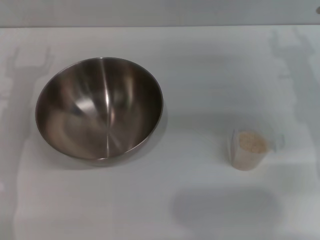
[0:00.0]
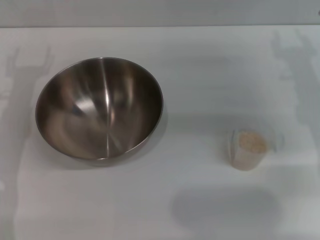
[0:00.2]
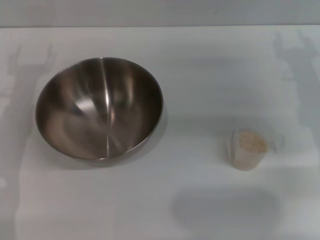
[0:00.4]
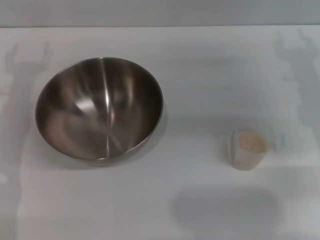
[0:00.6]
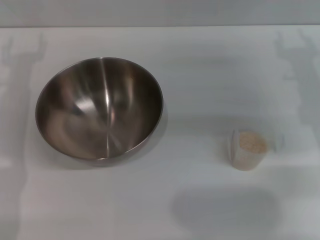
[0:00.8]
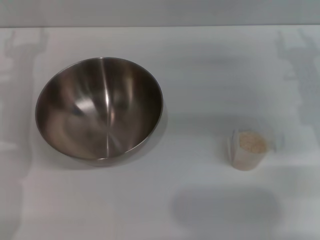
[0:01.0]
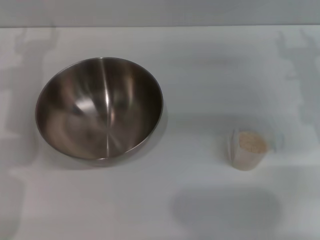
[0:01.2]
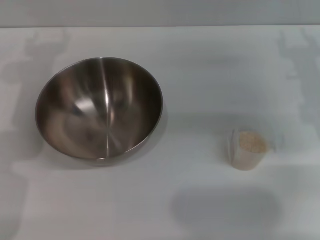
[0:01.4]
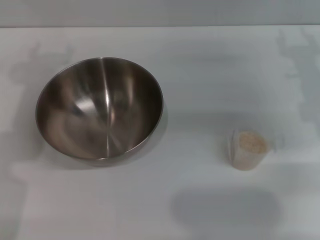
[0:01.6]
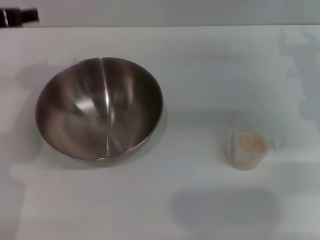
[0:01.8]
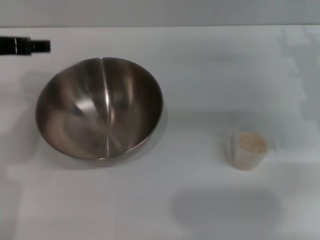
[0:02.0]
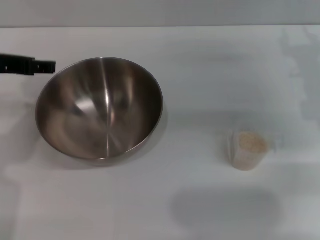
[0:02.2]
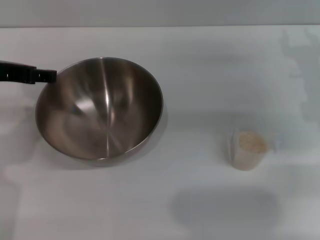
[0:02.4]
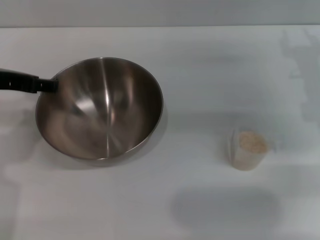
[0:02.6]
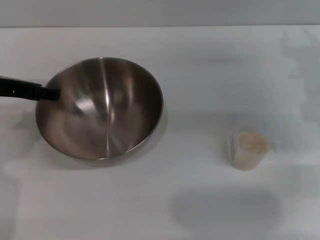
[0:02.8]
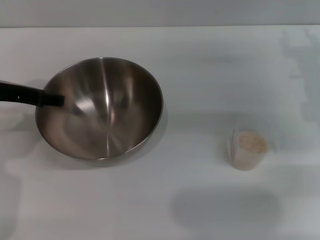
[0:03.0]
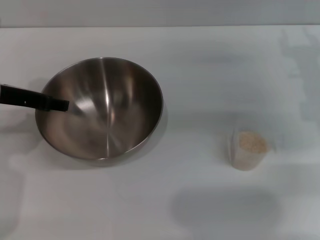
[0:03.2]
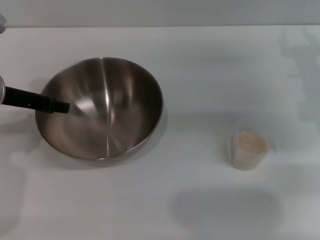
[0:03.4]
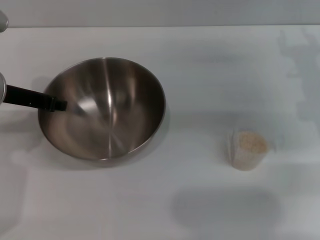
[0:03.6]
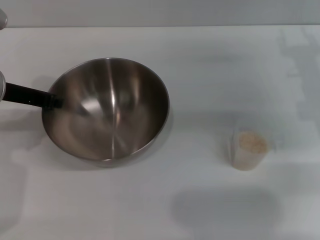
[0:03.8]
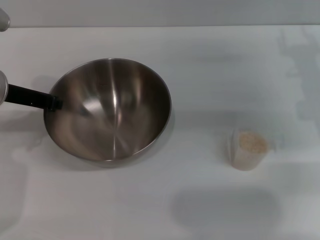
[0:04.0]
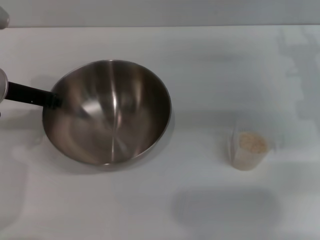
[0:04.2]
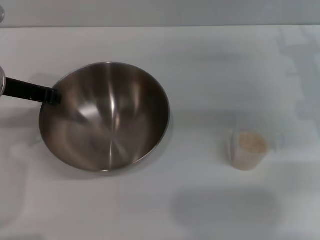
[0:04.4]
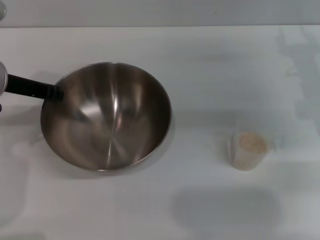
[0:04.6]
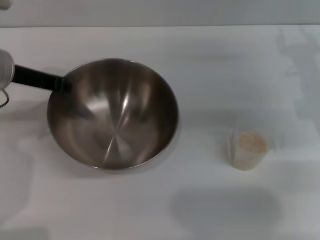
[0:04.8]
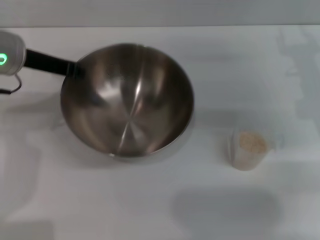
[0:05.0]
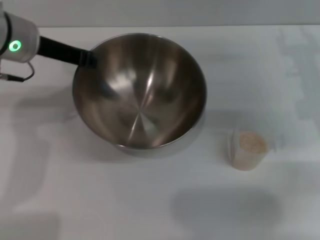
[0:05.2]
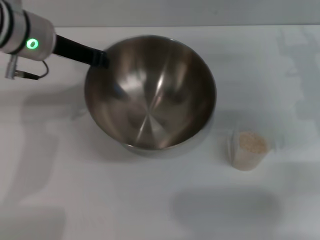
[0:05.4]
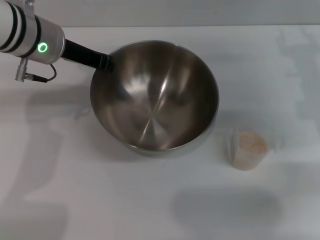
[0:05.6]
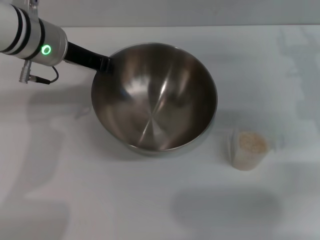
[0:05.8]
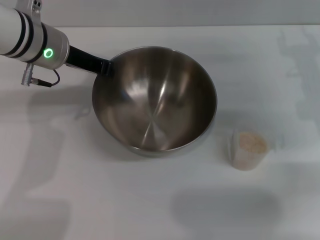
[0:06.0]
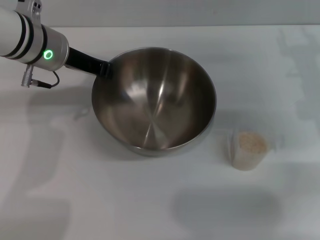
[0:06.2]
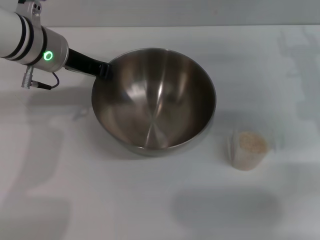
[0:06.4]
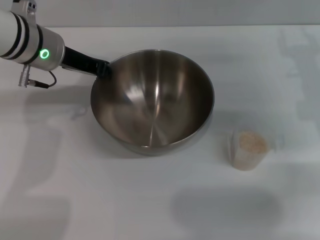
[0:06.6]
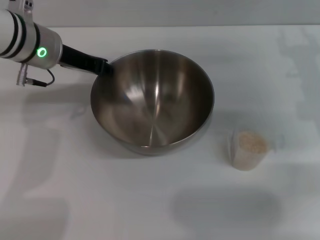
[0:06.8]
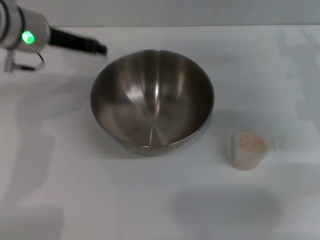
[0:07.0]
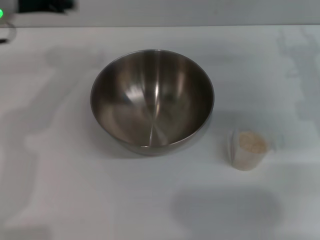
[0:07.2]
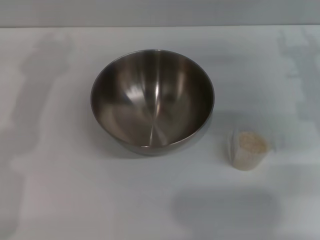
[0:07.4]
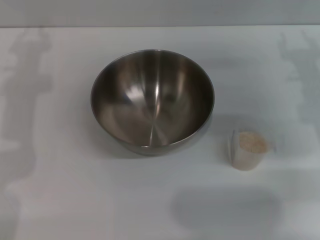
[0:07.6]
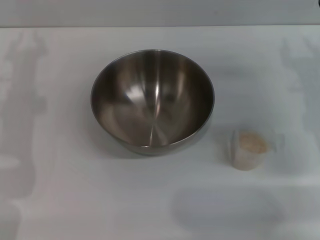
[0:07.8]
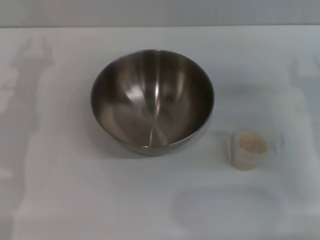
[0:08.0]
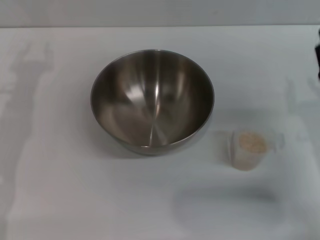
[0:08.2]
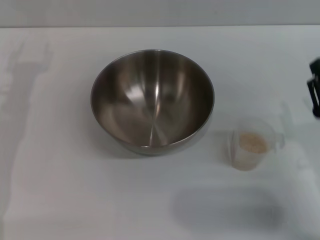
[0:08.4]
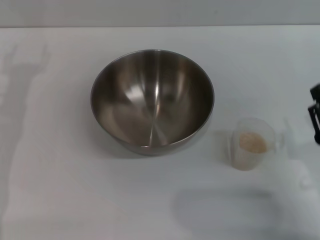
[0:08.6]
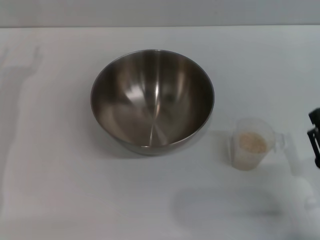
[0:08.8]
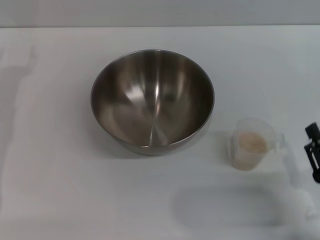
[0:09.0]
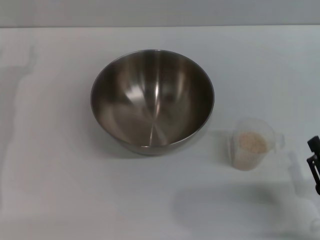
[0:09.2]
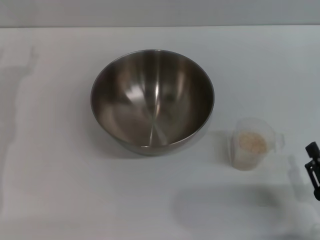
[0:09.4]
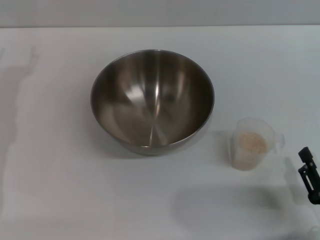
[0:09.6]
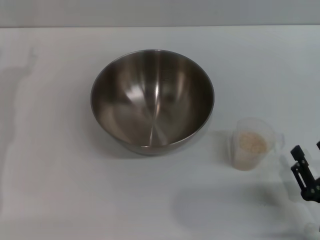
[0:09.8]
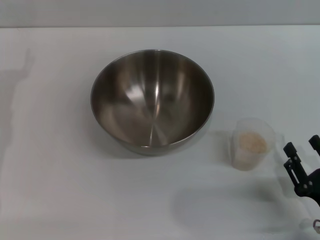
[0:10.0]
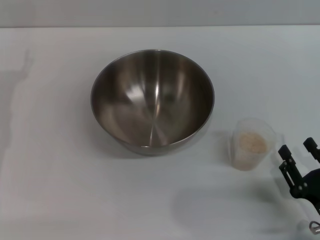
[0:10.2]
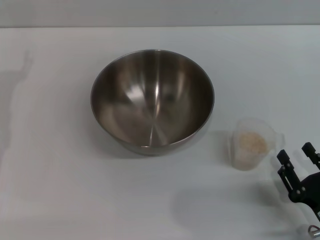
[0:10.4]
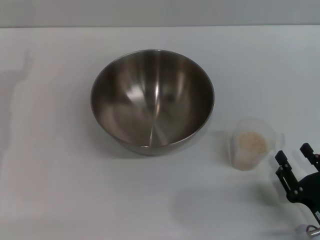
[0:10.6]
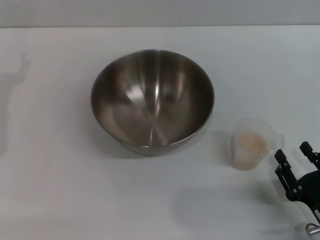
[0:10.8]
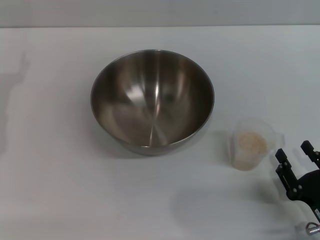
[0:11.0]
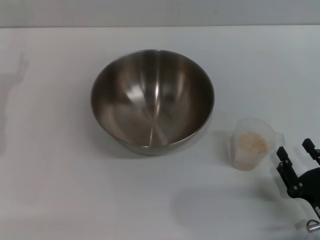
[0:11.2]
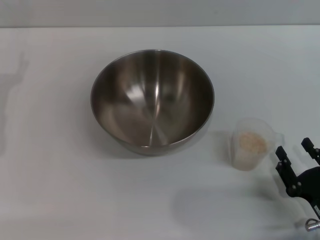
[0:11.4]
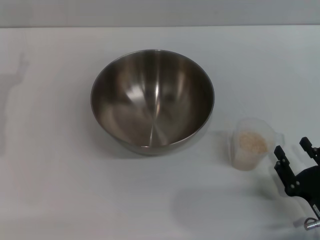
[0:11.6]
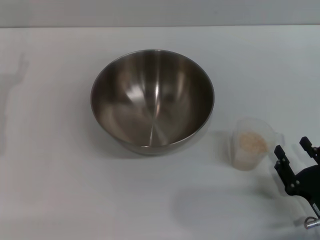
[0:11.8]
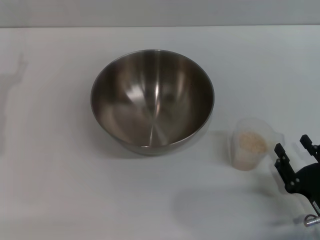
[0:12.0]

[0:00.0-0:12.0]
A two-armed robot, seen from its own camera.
Task of the whole recording: Place the bowl in the middle of the table with one hand and pour the rice from the grain cup into it with the other hand.
Step, 0:00.0 to 0:05.0: Pick up the bowl with the left gripper.
Step, 0:05.2 to 0:07.0: Place the bowl in the center of view with the left gripper.
0:01.6 to 0:03.0: The left gripper moves downward, about 5 cm.
0:03.0 to 0:04.4: The left gripper closes.
0:04.4 to 0:06.0: The left gripper shifts some 10 cm to the right and forward.
0:06.0 to 0:07.6: The left gripper travels to the left by roughly 10 cm, and opens.
0:07.6 to 0:09.0: The right gripper heads backward and downward, covering roughly 25 cm.
0:09.0 to 0:12.0: The grippers stay close to where they were, moving slightly.

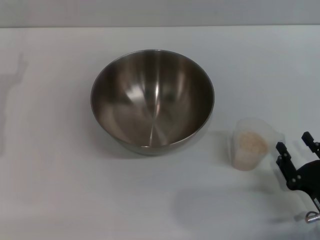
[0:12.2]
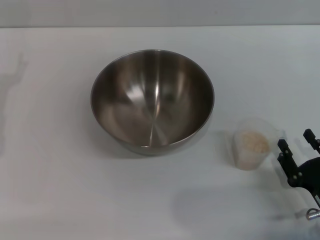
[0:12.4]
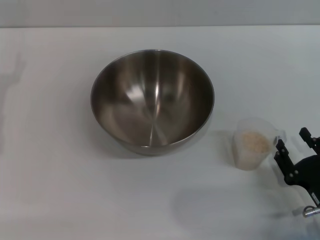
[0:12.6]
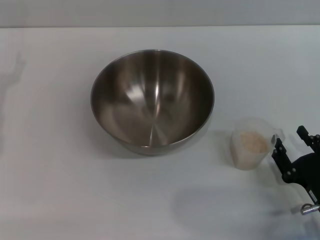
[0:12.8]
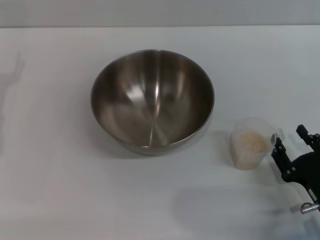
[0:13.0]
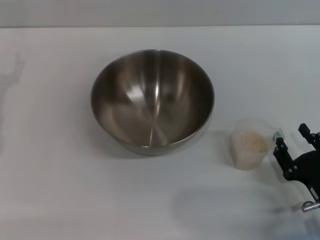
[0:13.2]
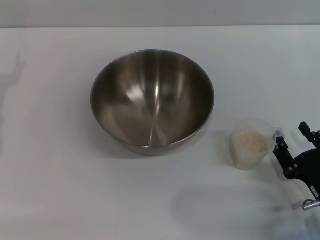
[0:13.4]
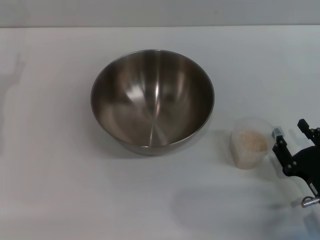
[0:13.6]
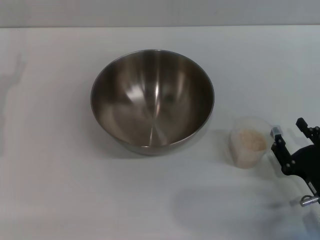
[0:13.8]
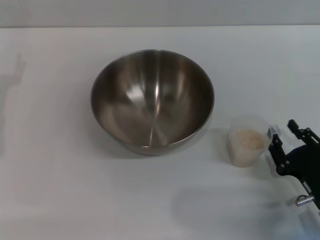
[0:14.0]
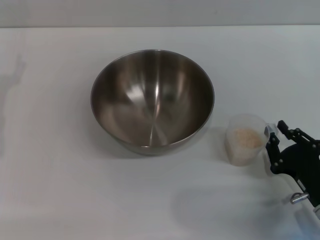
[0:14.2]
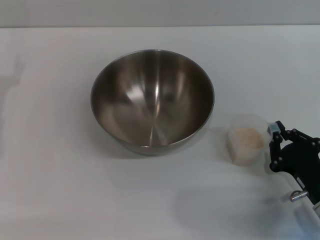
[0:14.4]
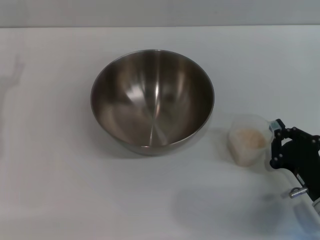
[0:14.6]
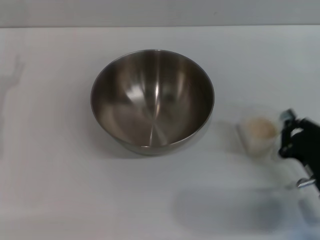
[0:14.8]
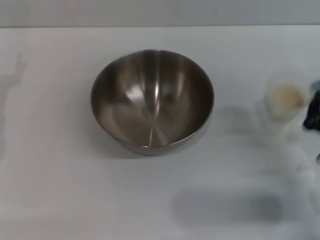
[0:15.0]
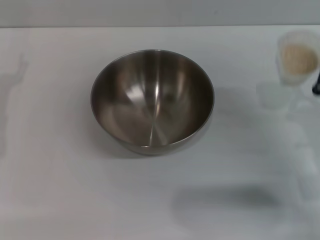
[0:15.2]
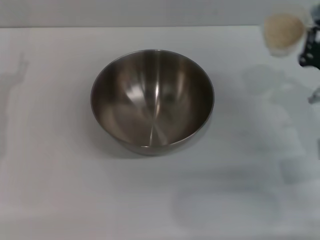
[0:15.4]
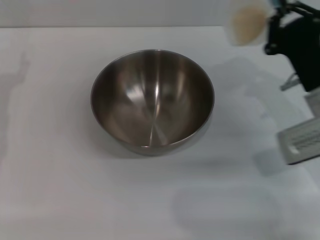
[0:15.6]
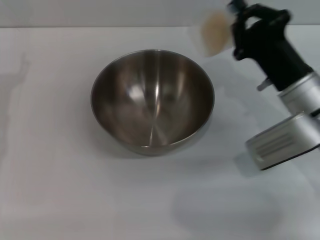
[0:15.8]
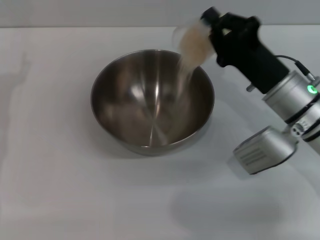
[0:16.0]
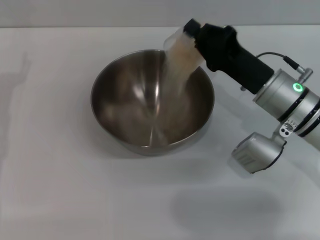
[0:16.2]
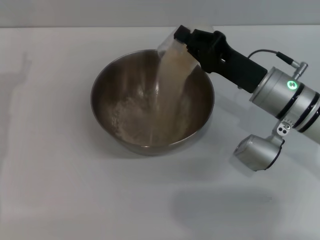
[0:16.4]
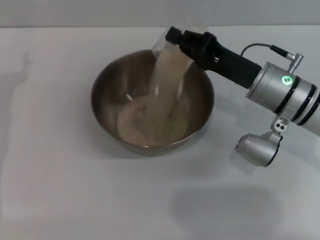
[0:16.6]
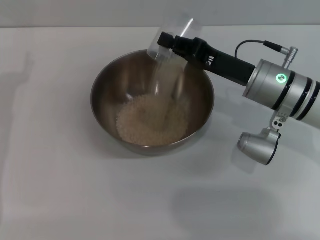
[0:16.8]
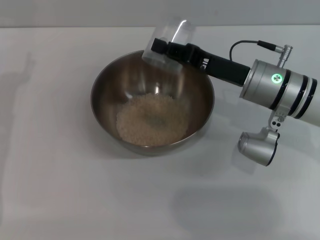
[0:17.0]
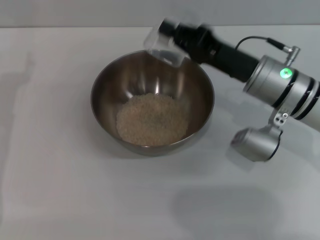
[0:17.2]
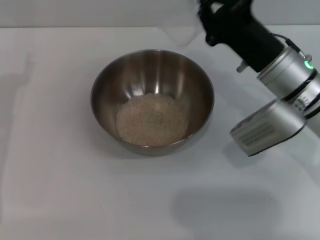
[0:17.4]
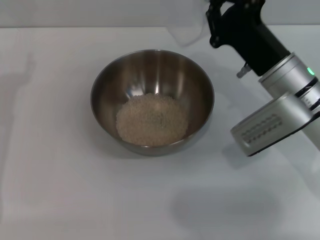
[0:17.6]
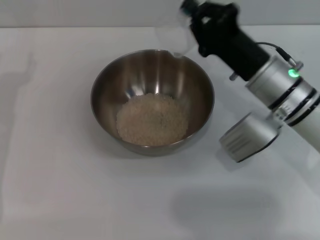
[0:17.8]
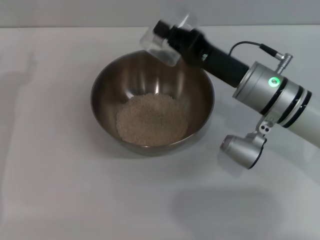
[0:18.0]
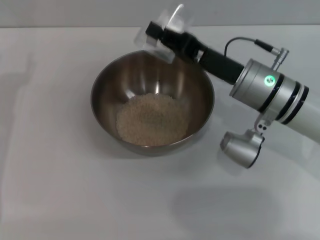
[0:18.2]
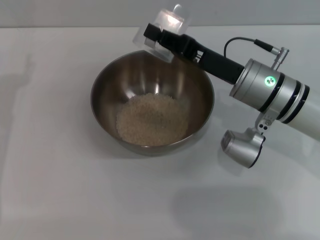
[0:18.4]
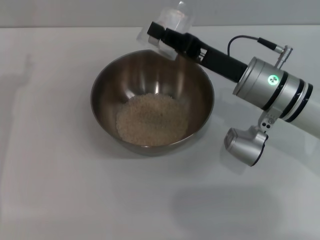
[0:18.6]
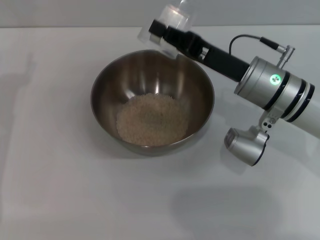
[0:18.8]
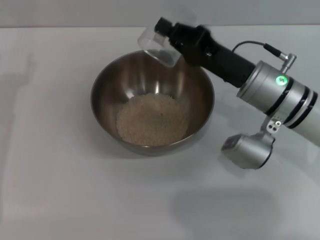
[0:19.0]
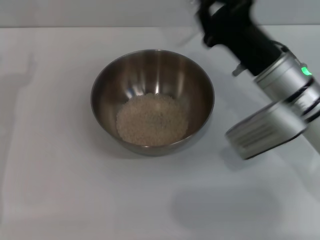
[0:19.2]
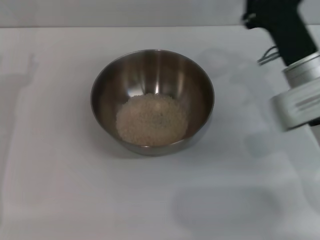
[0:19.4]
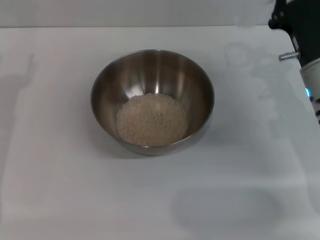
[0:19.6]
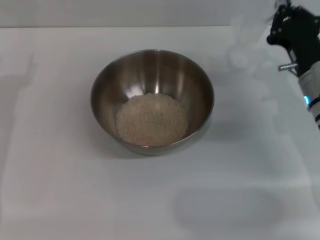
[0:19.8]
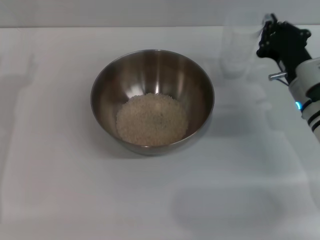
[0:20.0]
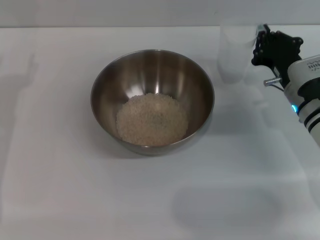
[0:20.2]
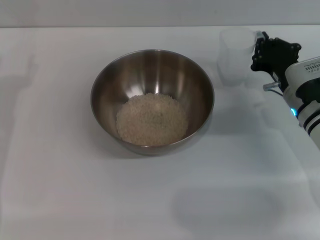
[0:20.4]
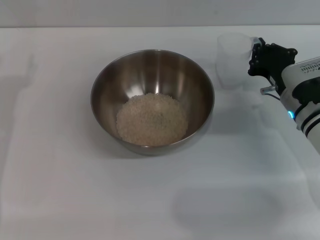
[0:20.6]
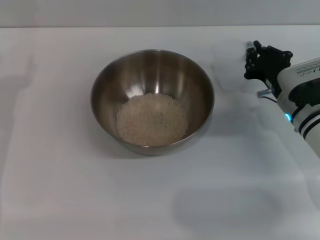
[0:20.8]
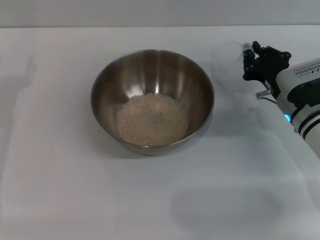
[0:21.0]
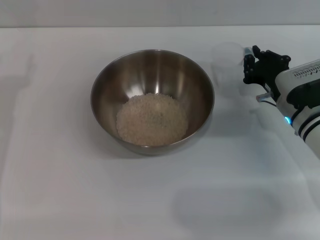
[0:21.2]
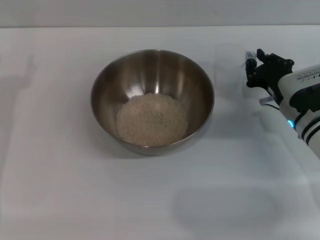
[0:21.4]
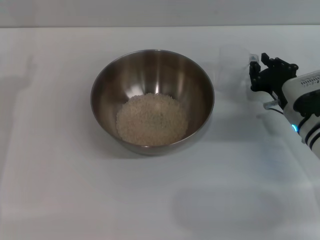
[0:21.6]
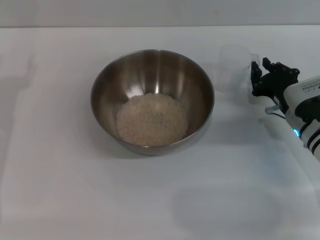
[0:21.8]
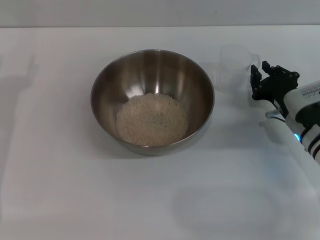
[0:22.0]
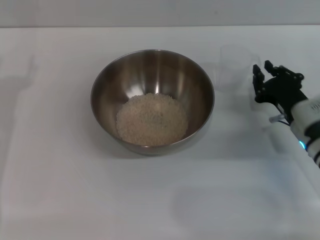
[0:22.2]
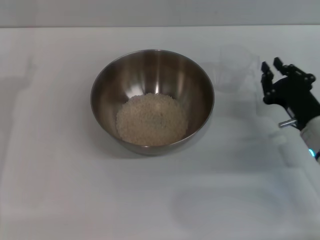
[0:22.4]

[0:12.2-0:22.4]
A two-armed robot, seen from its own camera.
Task of the whole recording: Place the bowl in the middle of the table with one hand and pour the rice from the grain cup into it with the other hand.
Step, 0:12.2 to 0:15.0: Pick up the cup with rice in it with the right gripper.
Step, 0:15.2 to 0:18.6: Pour the rice from the cup into the bowl with the right gripper.
0:12.2 to 0:13.6: The grippers stay close to where they were, moving slightly.
0:13.6 to 0:15.2: The right gripper heads forward and upward, covering about 10 cm, and closes its fingers.
0:15.2 to 0:16.6: The right gripper travels forward and to the left by approximately 15 cm.
0:19.4 to 0:21.0: The right gripper heads downward, covering some 5 cm.
0:21.0 to 0:22.4: The right gripper travels backward by some 5 cm.
